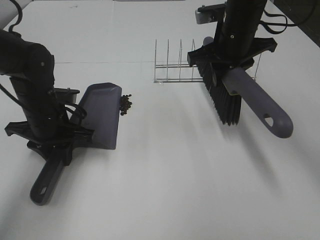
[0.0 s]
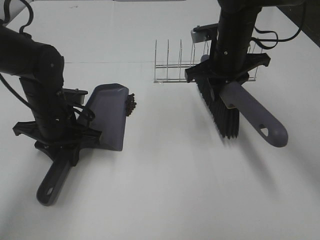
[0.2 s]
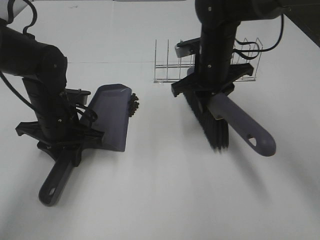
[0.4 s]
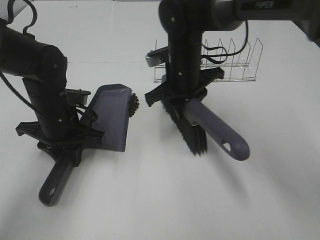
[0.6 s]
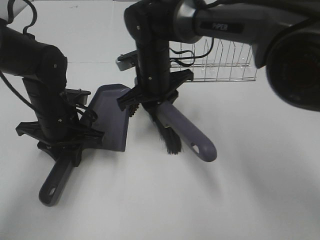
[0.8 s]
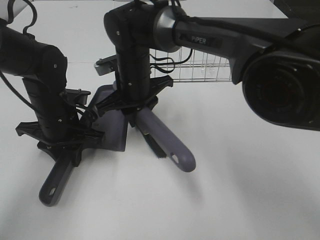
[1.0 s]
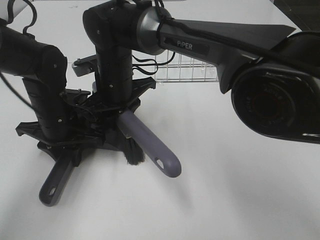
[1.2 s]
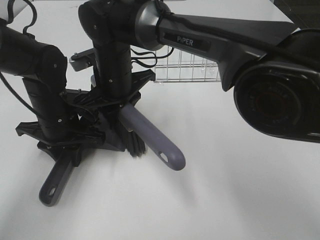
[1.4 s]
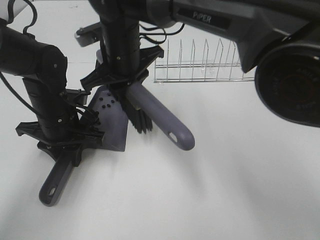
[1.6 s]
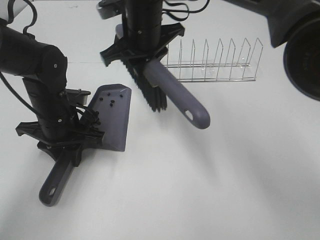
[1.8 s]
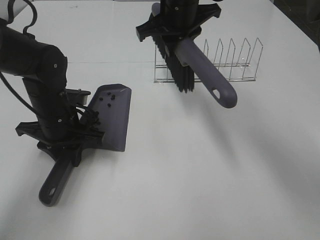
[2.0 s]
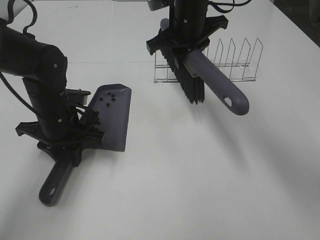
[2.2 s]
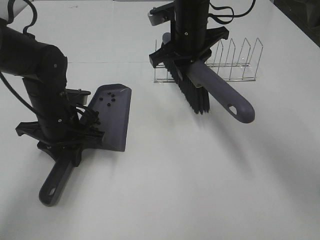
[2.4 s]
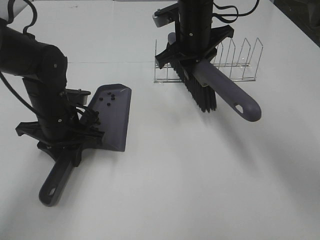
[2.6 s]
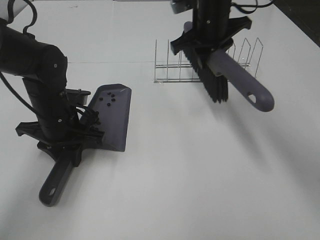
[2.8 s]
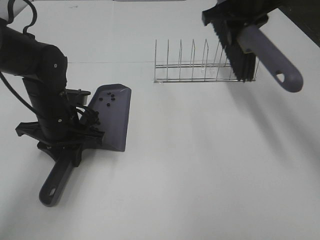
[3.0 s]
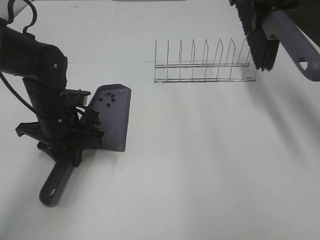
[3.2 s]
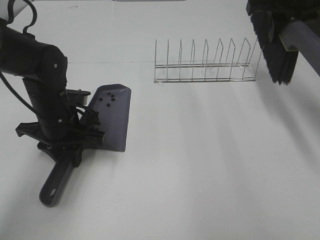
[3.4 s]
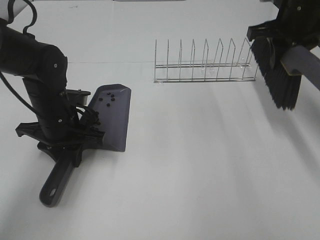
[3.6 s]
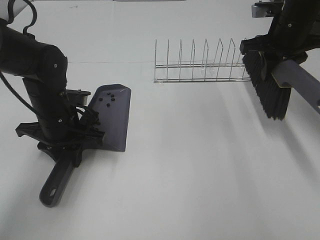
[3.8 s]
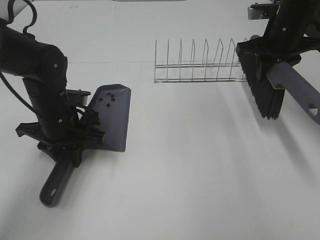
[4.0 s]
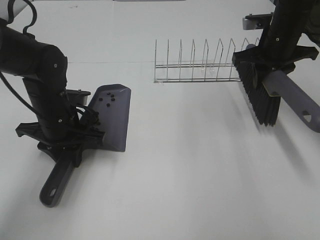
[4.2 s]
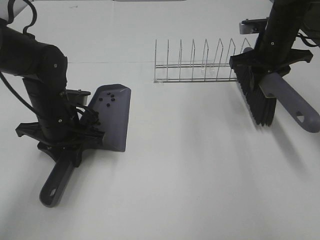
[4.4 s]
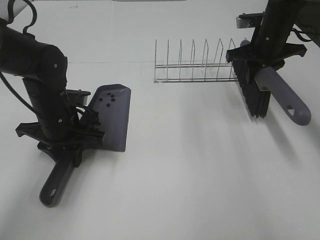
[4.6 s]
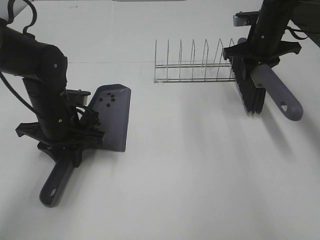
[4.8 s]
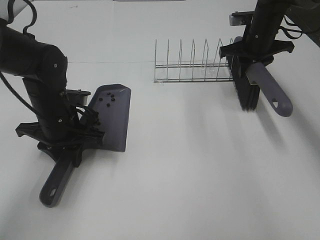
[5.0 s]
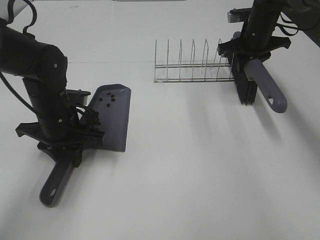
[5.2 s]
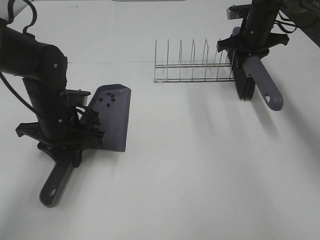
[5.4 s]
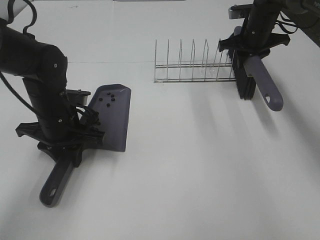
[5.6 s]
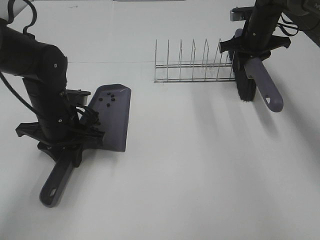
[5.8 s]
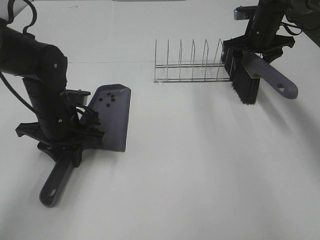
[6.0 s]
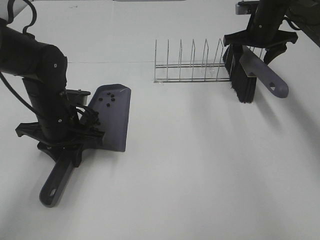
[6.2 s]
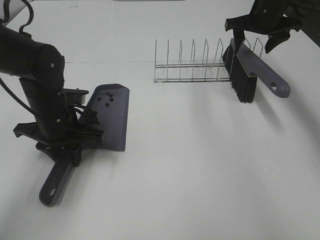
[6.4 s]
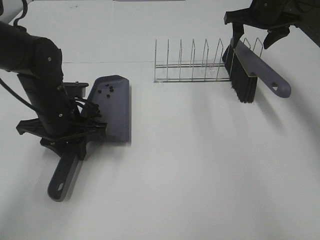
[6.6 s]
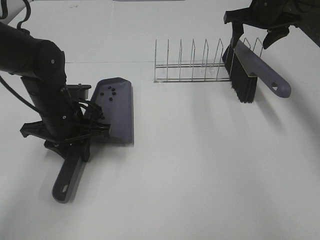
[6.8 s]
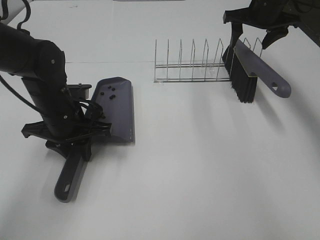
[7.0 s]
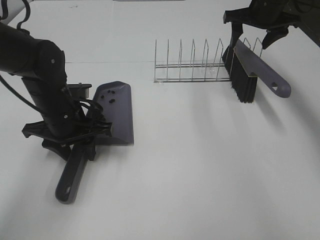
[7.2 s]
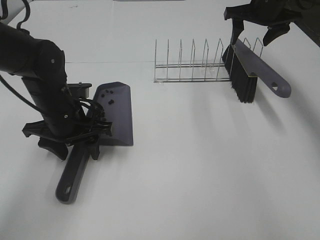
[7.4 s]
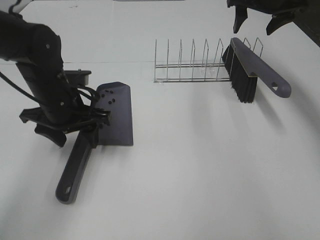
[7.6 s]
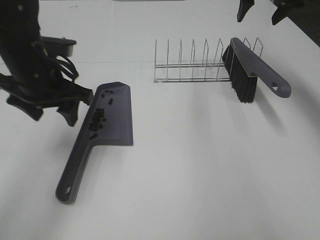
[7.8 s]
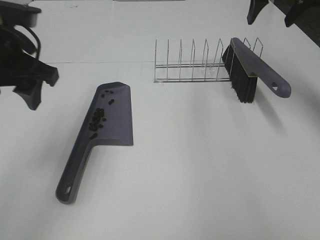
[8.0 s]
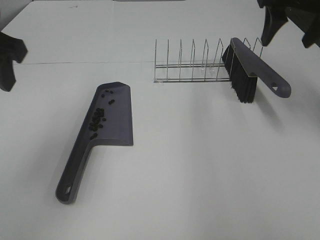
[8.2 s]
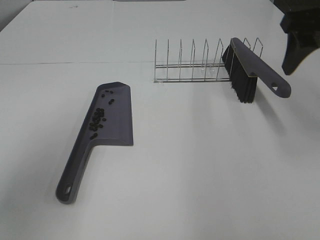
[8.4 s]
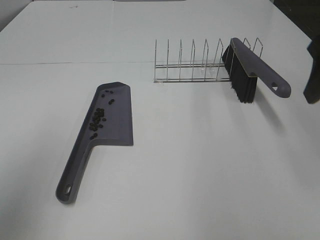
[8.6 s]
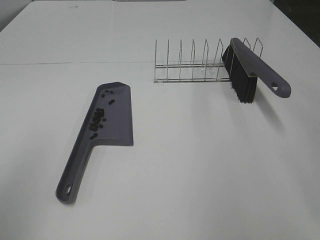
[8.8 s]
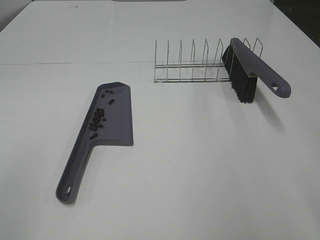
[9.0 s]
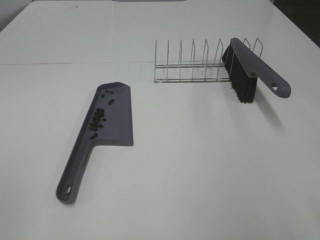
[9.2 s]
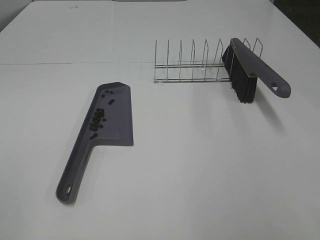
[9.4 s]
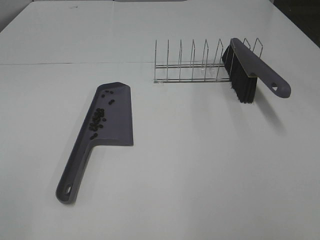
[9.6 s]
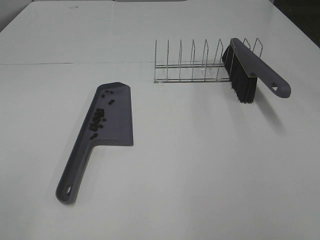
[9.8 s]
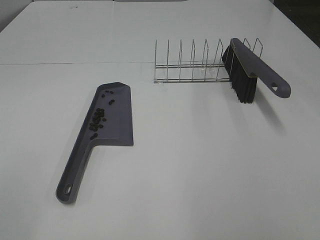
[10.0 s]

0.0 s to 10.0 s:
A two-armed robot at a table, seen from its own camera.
Task of the whole recording: Sweep Coffee Bean.
Step, 1.8 to 6.2 s: Right hand:place the broom on the rack.
Step, 6.4 to 7.4 s: Left hand:place the dustpan on the table.
0.0 to 1.4 s: The right gripper shifts roughly 20 cm to the left.
1.4 to 2.8 s: The right gripper goes some 20 cm to the right and forward.
2.8 to 4.2 s: The right gripper shifts roughly 15 cm to the right.
4.2 to 5.8 s: The right gripper heads forward, covering about 10 cm.
5.8 to 7.2 s: The left gripper opens. The right gripper shifts approximately 5 cm upward, and opens.
7.2 to 8.6 s: The right gripper is displaced backward by some 30 cm. The left gripper travels backward, upward and to the left by approximately 30 cm, and opens.
8.6 to 10.0 s: The left gripper goes roughly 10 cm backward, while the right gripper shifts approximately 25 cm backward.

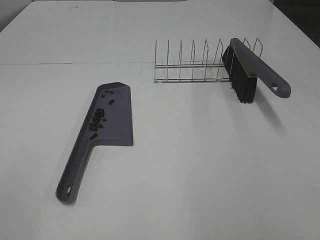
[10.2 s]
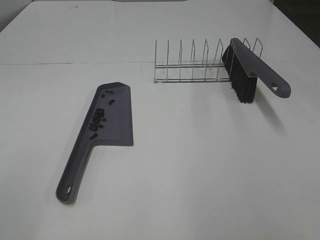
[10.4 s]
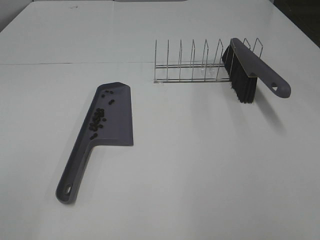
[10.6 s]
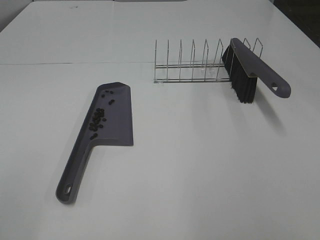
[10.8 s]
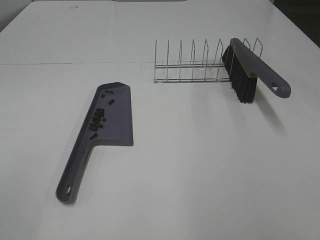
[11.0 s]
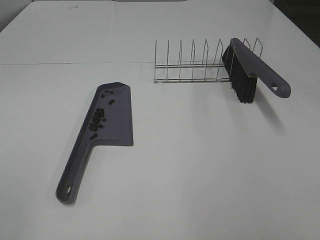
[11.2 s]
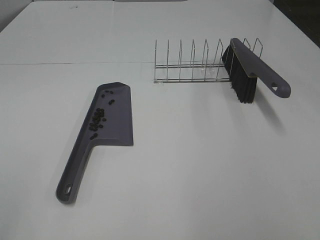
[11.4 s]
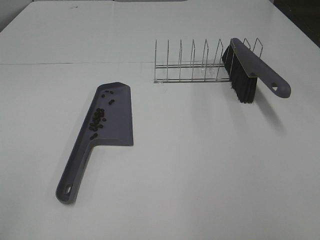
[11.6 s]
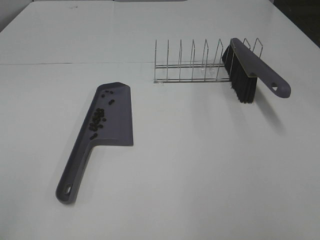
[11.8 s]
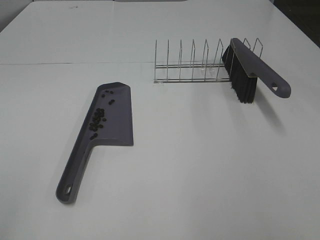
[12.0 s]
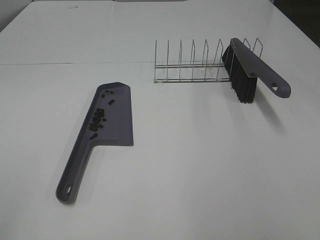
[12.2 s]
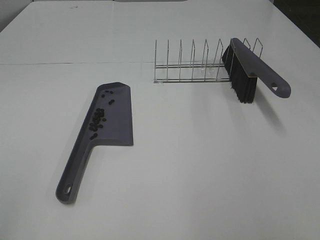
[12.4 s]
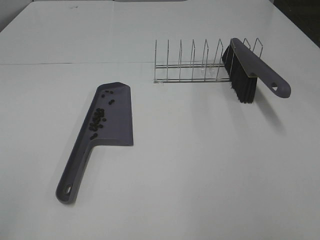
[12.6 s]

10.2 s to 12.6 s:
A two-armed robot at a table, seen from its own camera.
Task of the whole recording: Sweep Coffee Bean.
11.4 to 12.6 s: The two grippers keep their place.

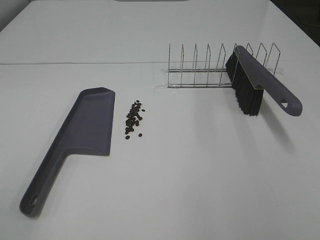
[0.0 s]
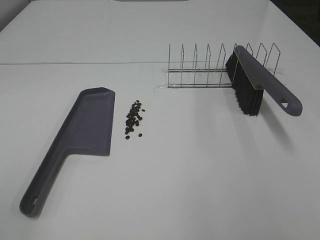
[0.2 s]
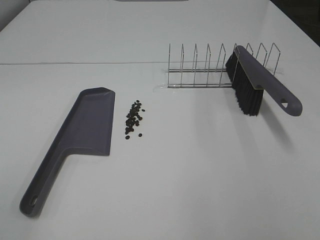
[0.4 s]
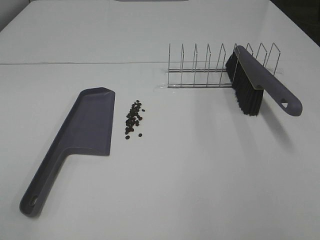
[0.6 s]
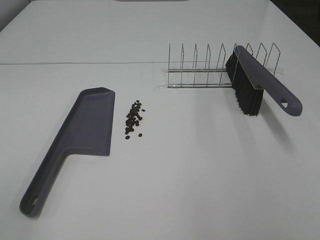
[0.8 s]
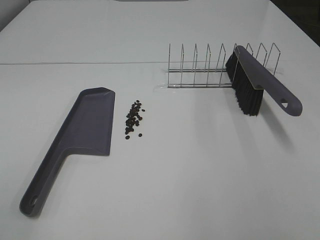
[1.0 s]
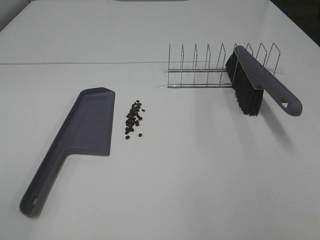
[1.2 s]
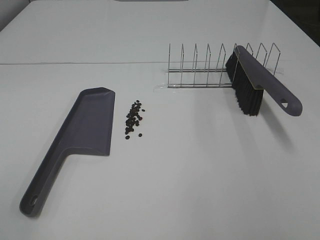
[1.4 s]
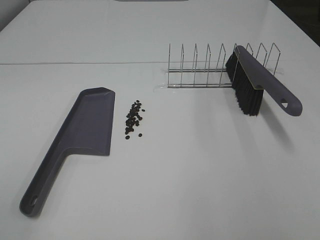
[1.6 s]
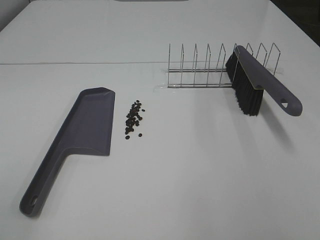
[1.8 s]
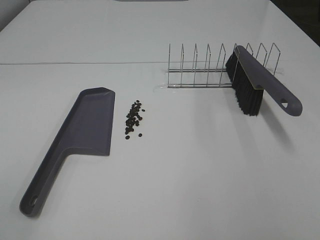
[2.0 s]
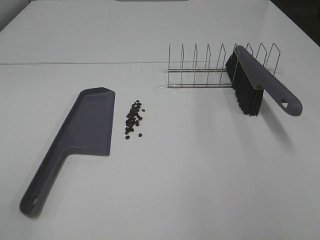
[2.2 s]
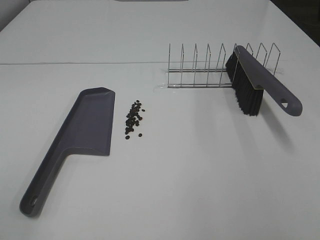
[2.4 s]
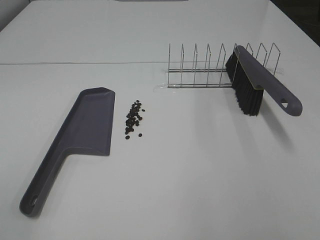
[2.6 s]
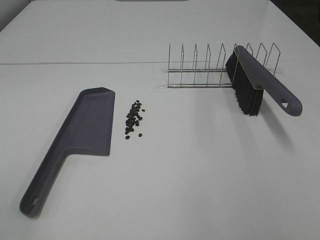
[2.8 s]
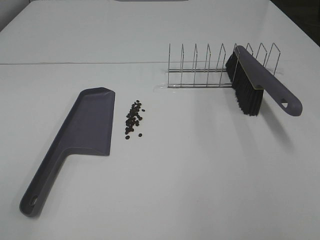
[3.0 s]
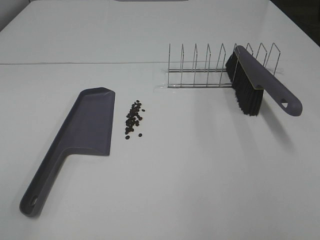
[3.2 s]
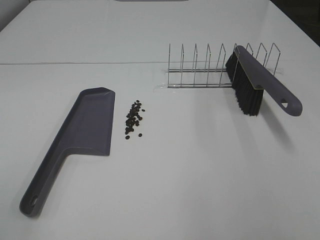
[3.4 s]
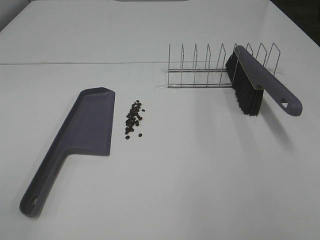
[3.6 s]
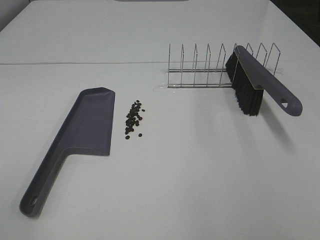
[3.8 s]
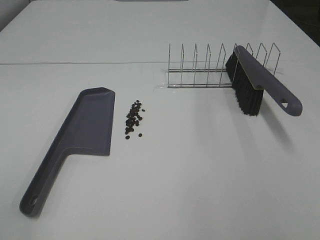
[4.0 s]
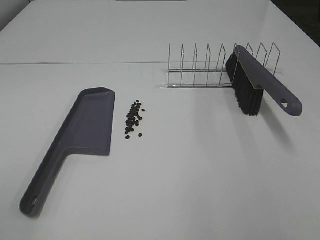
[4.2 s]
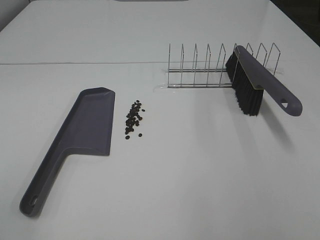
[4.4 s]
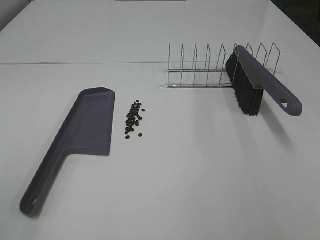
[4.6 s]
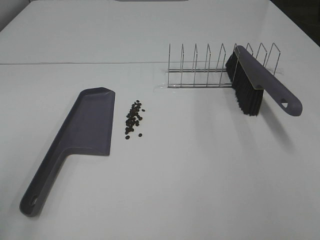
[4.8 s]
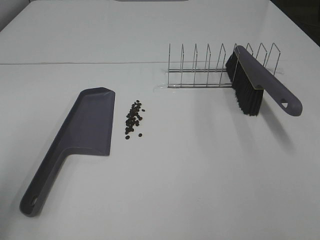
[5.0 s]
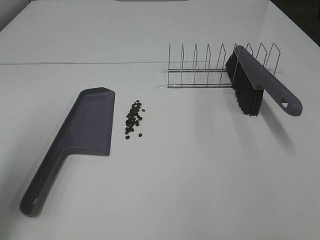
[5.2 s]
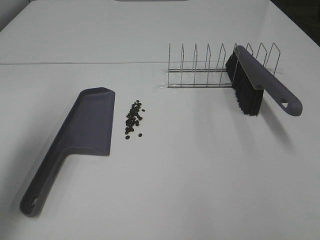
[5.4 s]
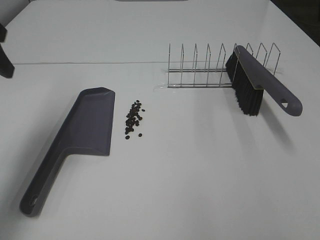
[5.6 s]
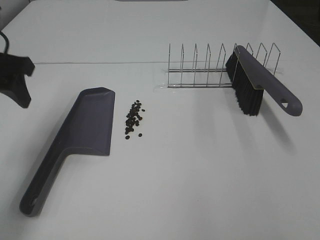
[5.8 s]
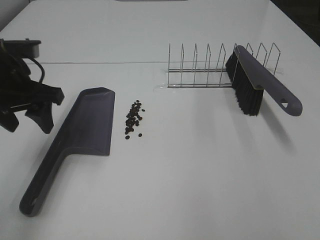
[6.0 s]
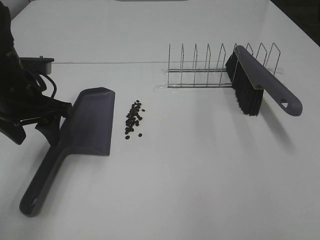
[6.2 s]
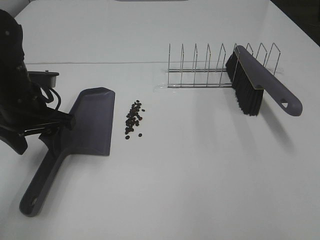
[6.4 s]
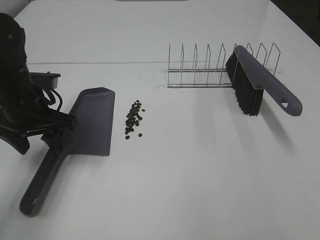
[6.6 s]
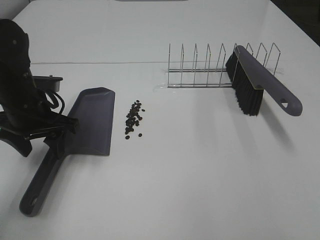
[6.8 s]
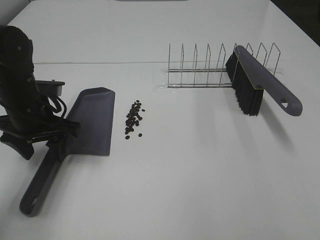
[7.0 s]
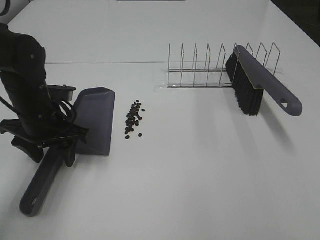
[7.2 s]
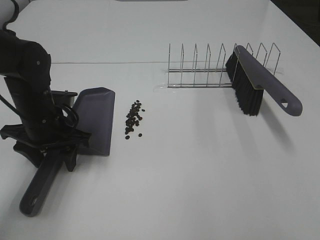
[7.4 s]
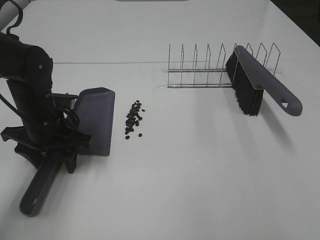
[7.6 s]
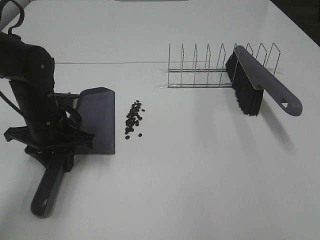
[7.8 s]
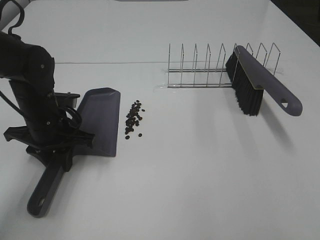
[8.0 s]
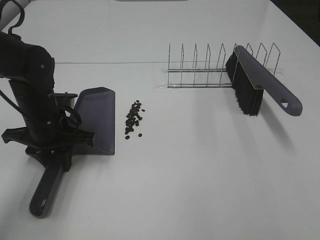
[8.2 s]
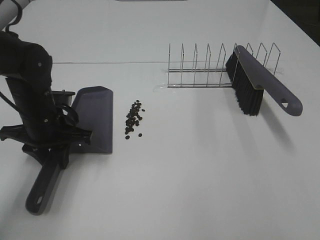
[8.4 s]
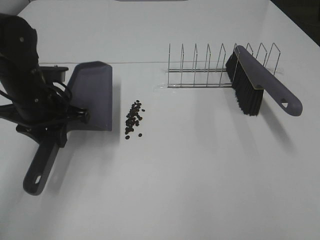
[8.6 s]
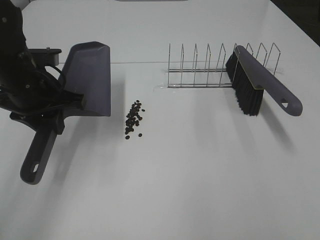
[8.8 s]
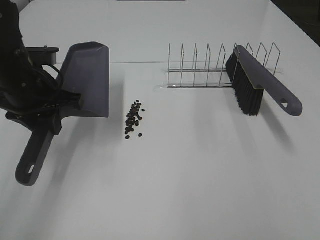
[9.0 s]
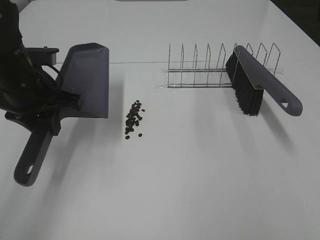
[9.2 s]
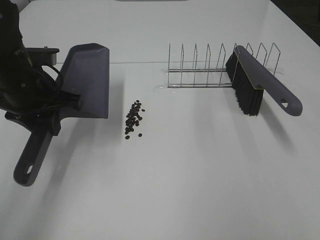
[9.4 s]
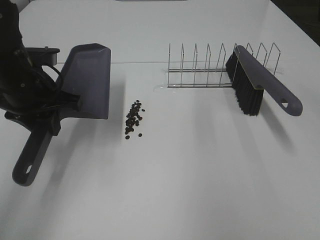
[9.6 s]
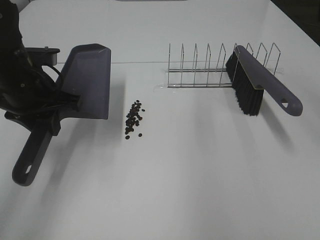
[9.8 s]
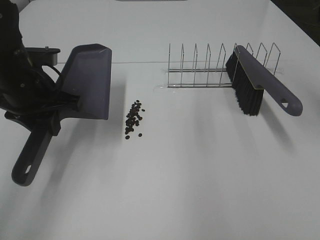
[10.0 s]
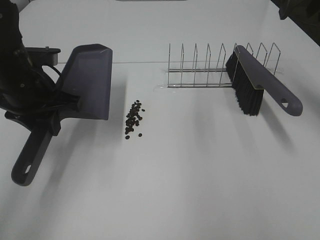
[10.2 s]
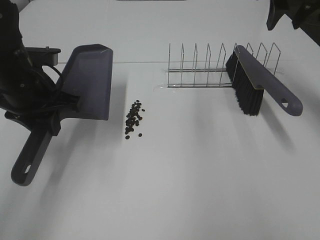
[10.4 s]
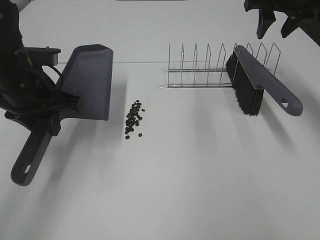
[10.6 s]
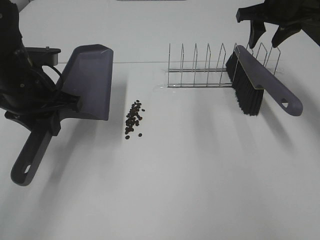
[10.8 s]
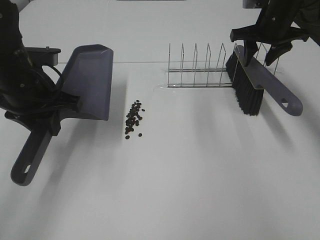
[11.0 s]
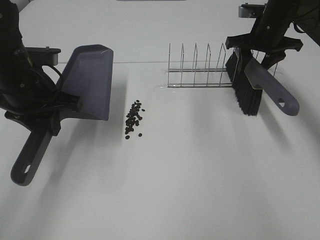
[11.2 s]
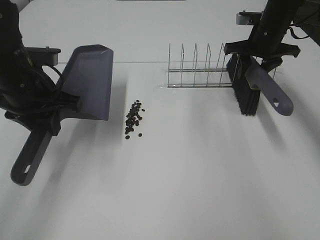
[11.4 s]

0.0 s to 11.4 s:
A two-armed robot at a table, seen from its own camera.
Task of the whole recording: Sweep Coffee Bean.
Step, 0.0 to 7.8 s: Left hand: grab the dustpan.
0.0 to 4.2 s: Both grippers stay put.
4.2 to 5.6 s: The left gripper is displaced forward by approximately 30 cm.
5.6 to 7.2 s: The left gripper travels downward and to the right by some 20 cm.
7.2 to 8.6 s: The left gripper closes.
8.6 to 10.0 s: The right gripper heads forward, covering about 35 cm, and closes.
10.0 to 11.4 s: The right gripper moves downward and forward, about 25 cm.
